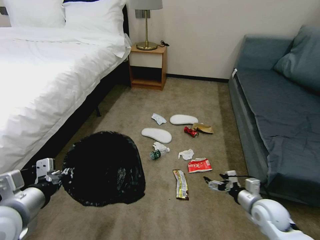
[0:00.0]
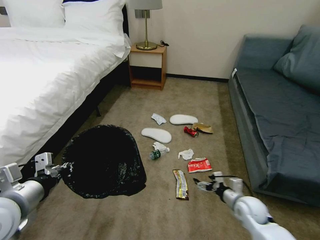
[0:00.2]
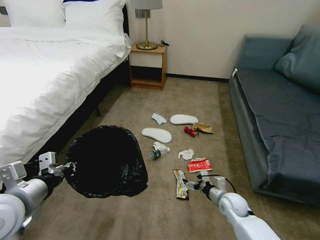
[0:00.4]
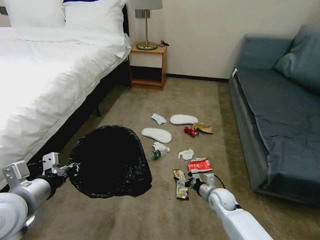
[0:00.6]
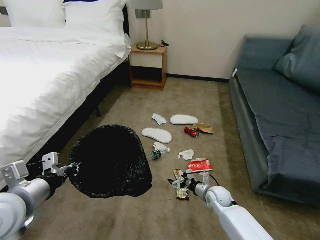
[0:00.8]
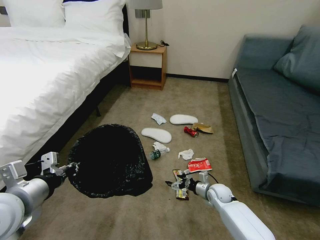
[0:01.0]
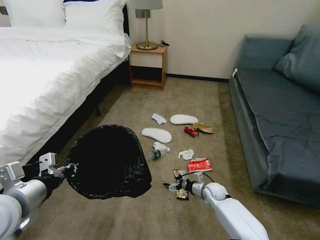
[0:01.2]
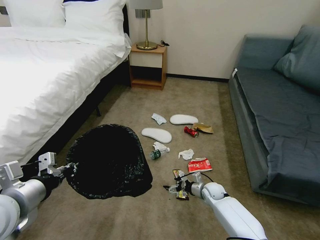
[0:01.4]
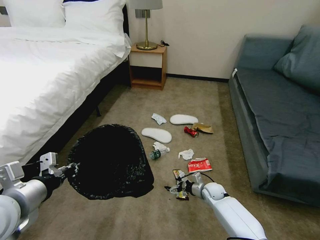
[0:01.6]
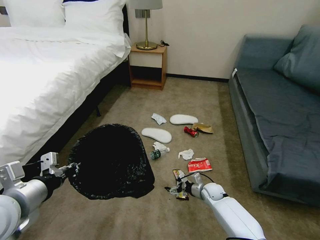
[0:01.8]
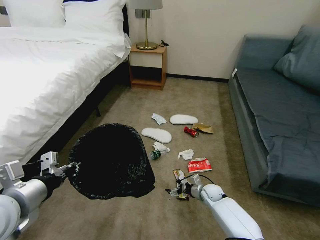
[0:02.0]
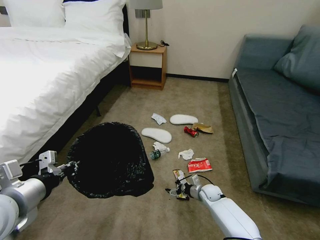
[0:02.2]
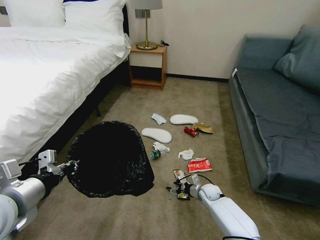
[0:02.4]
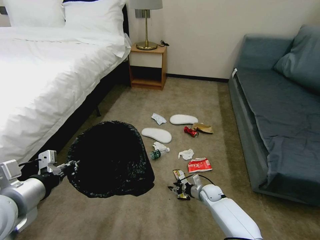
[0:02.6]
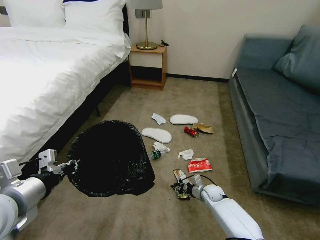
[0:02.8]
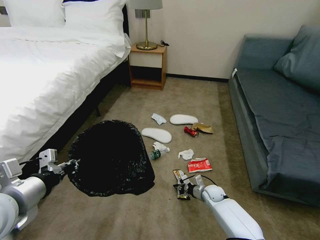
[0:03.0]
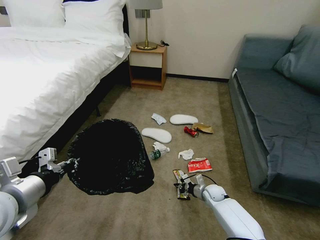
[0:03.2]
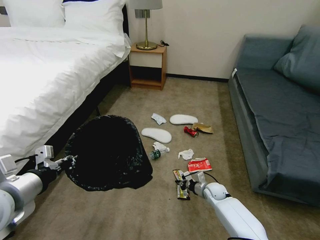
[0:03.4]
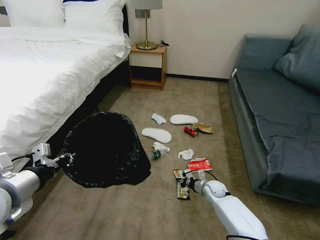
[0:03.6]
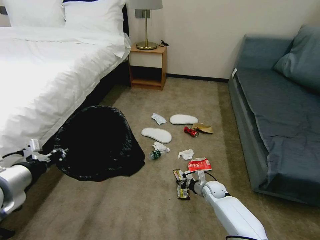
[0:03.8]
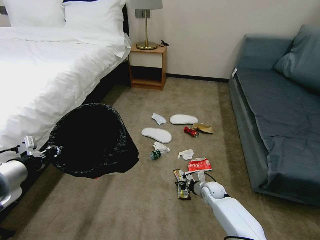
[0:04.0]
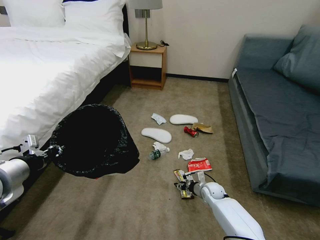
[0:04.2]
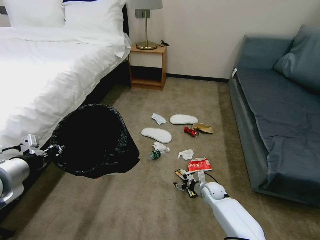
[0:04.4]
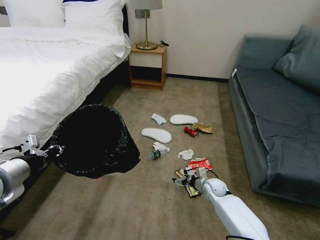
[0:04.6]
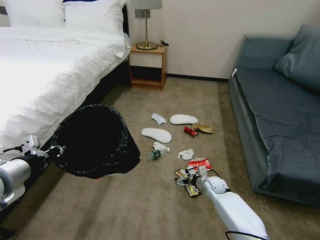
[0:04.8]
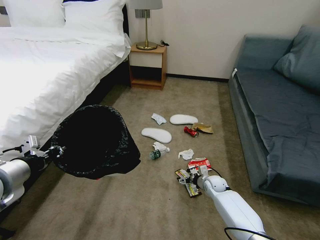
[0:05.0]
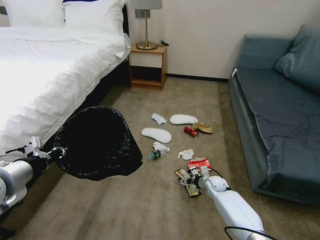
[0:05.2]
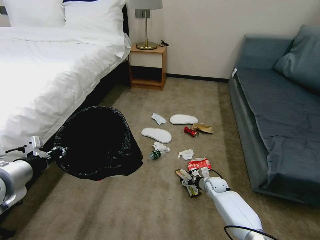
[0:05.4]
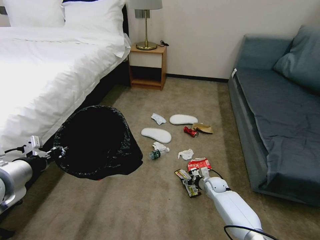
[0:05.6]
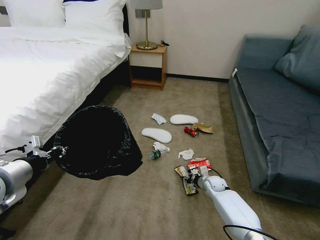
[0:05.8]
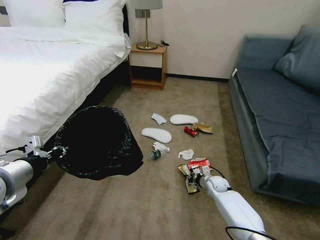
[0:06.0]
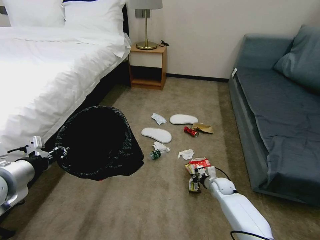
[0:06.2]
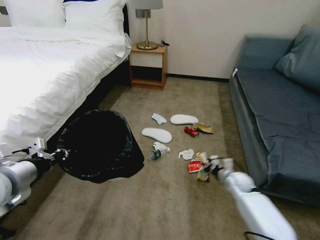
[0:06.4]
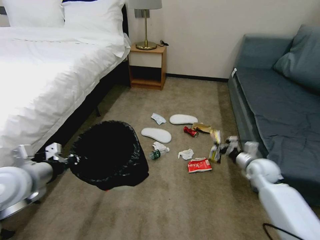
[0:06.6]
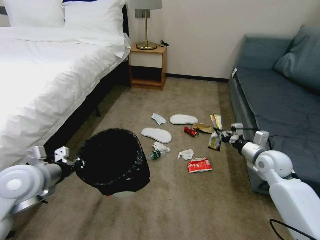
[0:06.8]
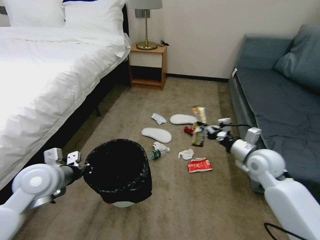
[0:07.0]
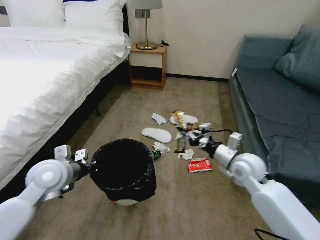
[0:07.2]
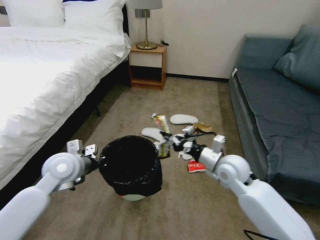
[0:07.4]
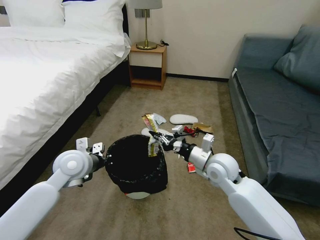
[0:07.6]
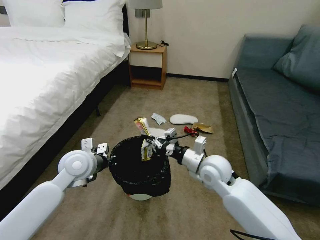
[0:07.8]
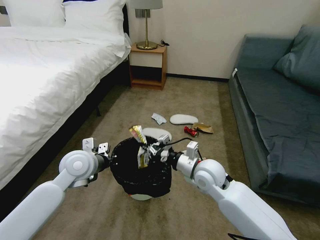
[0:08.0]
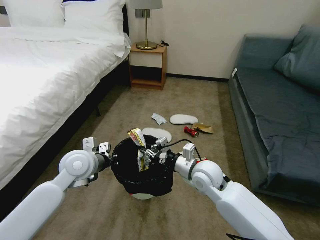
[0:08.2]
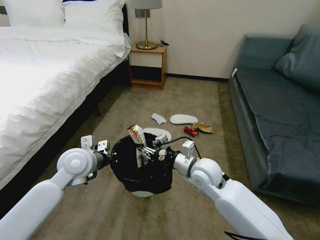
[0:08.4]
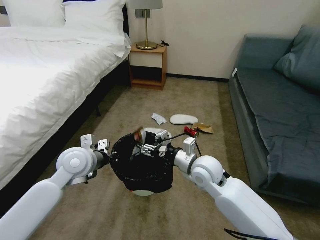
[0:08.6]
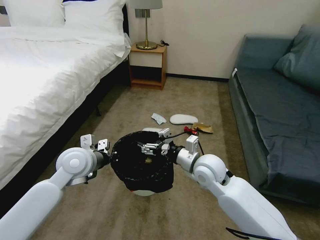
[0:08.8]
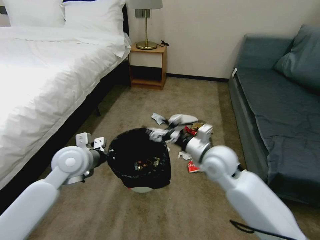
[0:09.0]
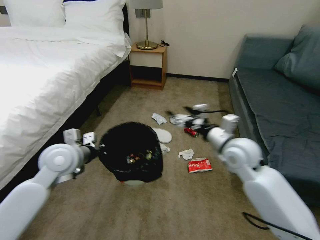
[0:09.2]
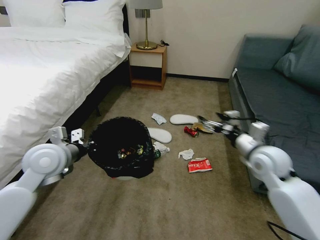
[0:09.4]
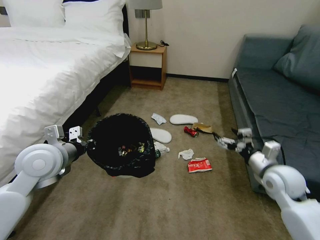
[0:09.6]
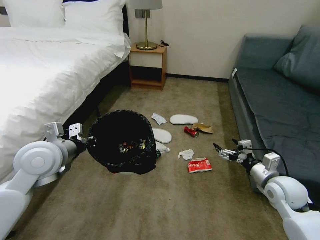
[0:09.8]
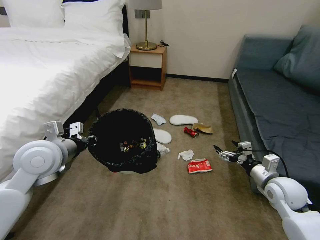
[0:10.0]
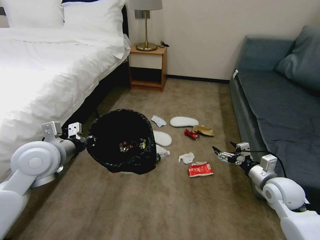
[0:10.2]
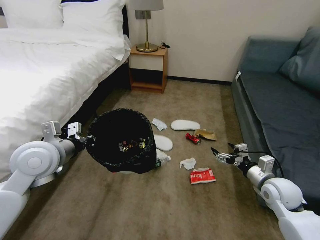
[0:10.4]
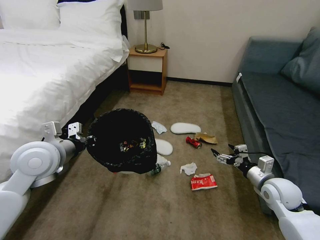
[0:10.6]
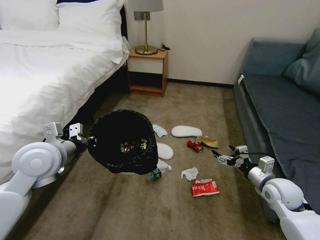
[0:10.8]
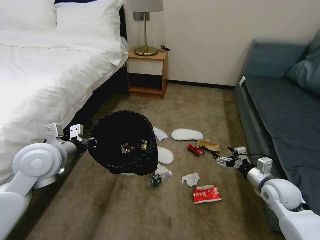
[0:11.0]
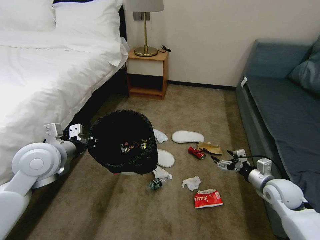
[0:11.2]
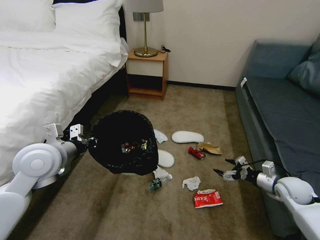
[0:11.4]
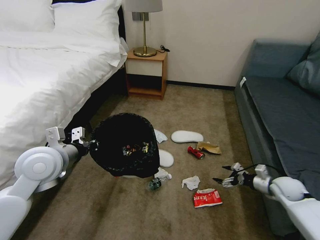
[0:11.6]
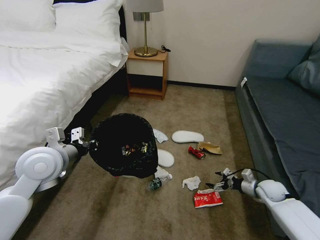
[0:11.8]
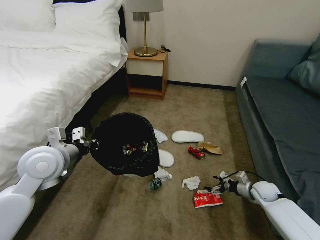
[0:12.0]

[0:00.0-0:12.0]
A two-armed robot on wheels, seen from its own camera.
Task of the whole recording: Pick up the trash bin, then pick up the garbage on the floor and place it into the trash bin.
0.0 to 1.6 s: The right gripper shifts some 25 cm downward, forward and to the left.
1.6 to 3.0 s: The right gripper closes.
3.0 to 4.4 s: The left gripper moves some 5 cm; the right gripper opens.
4.4 to 6.0 s: The right gripper closes its fingers.
6.0 to 7.6 s: The left gripper travels forward, to the right and downward by some 20 cm; the right gripper shifts approximately 25 cm upward.
7.6 to 9.0 s: The right gripper opens up.
9.0 to 10.4 s: The left gripper moves upward, about 5 cm; the right gripper heads to the right and downward, covering some 25 cm.
10.4 to 12.0 s: The right gripper is displaced downward and to the right by roughly 15 cm.

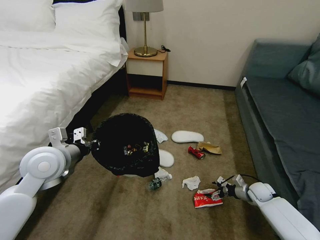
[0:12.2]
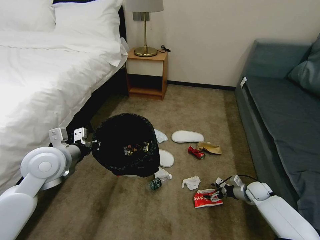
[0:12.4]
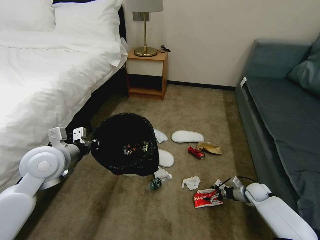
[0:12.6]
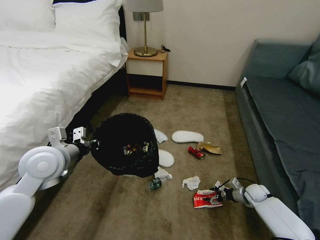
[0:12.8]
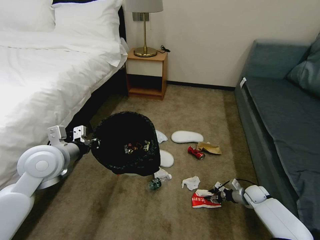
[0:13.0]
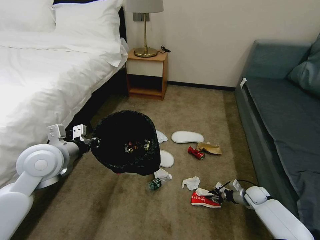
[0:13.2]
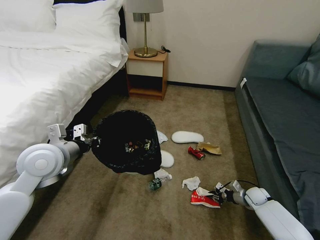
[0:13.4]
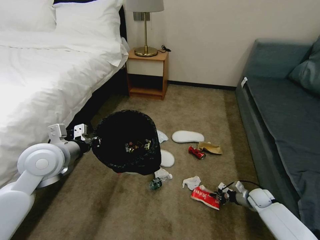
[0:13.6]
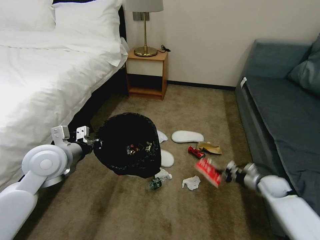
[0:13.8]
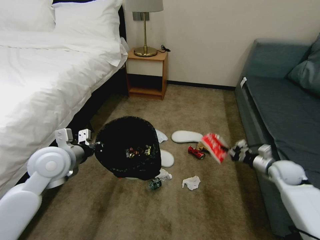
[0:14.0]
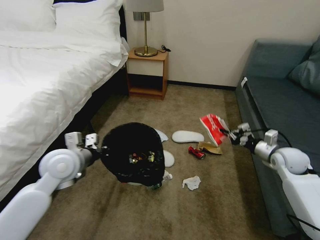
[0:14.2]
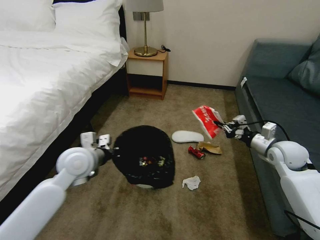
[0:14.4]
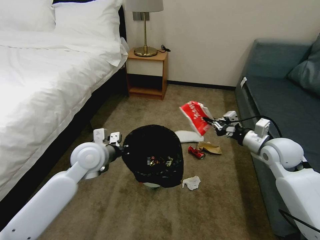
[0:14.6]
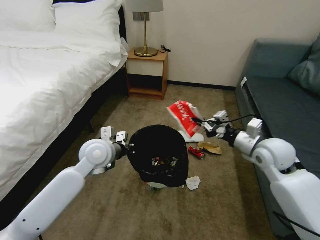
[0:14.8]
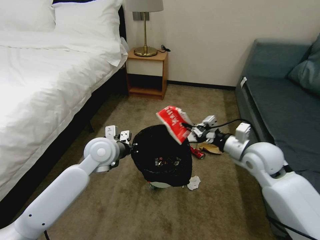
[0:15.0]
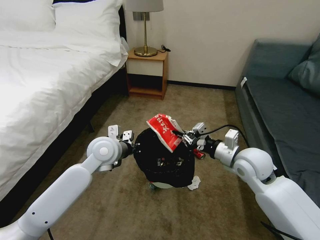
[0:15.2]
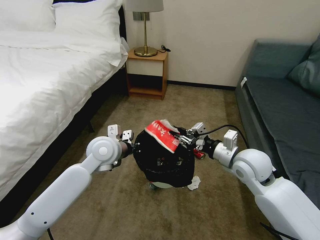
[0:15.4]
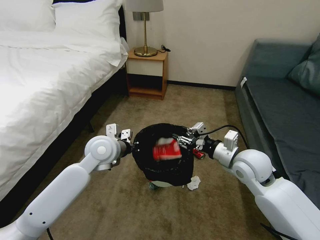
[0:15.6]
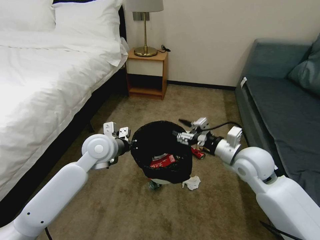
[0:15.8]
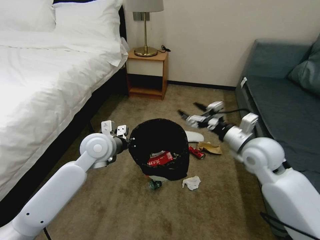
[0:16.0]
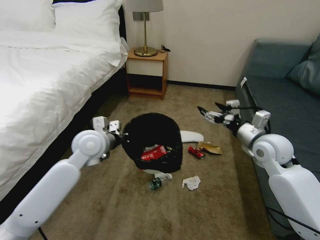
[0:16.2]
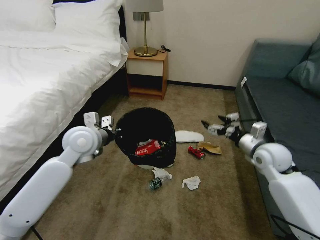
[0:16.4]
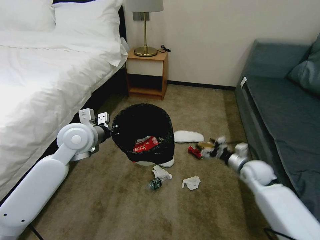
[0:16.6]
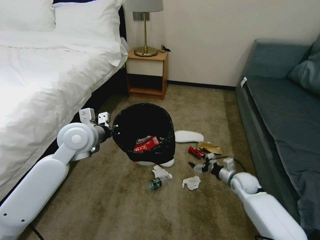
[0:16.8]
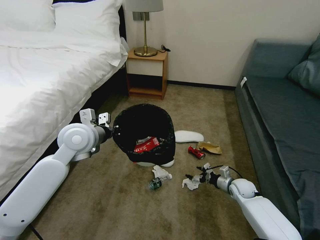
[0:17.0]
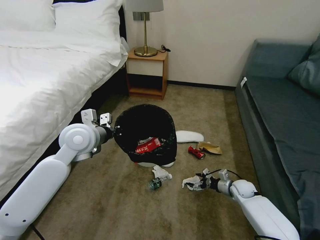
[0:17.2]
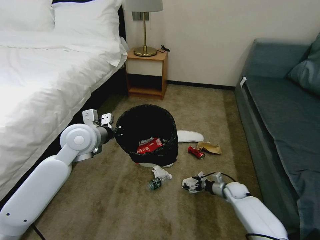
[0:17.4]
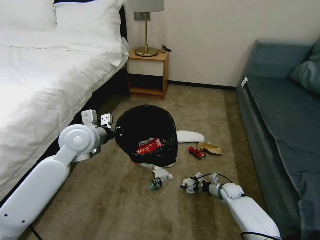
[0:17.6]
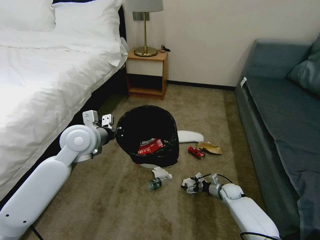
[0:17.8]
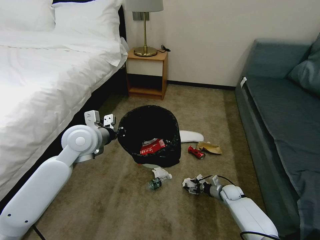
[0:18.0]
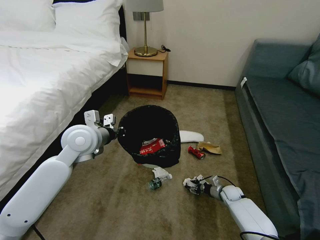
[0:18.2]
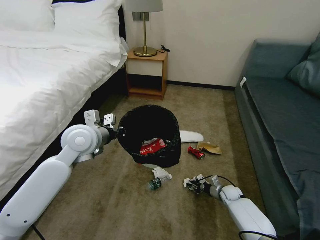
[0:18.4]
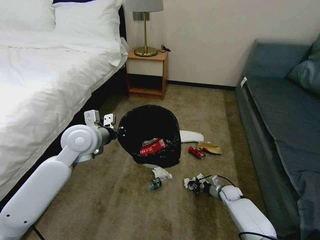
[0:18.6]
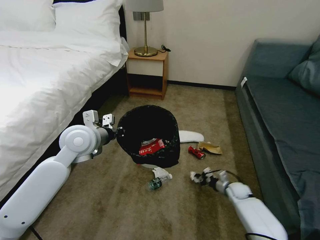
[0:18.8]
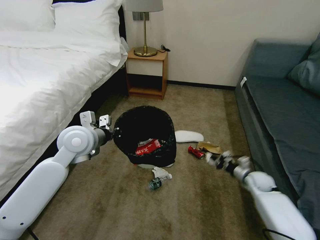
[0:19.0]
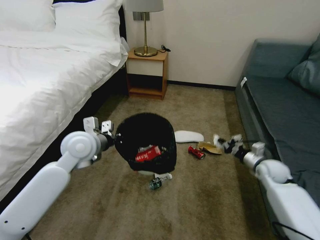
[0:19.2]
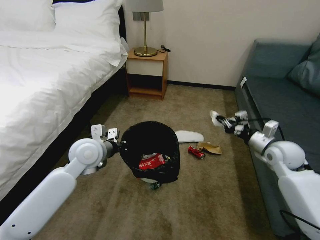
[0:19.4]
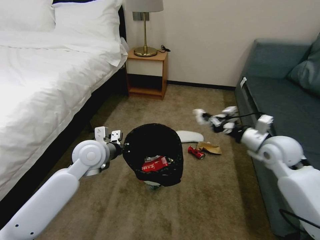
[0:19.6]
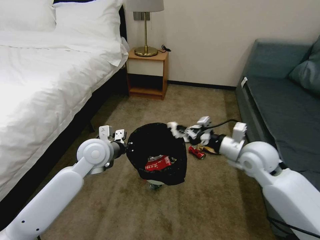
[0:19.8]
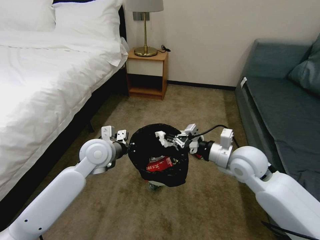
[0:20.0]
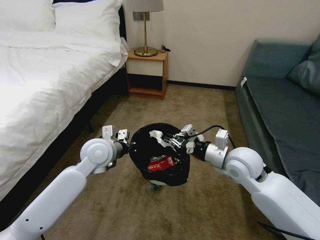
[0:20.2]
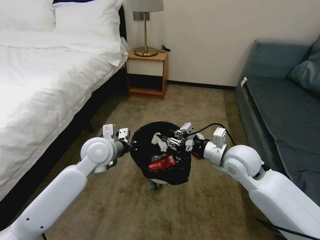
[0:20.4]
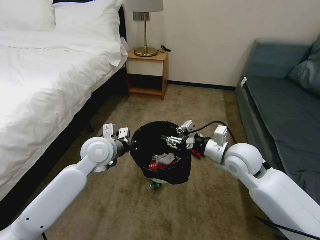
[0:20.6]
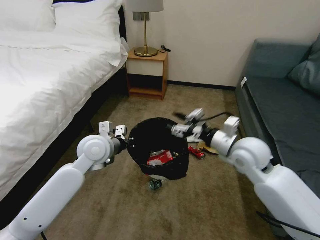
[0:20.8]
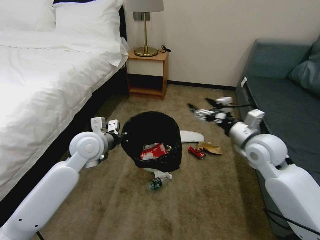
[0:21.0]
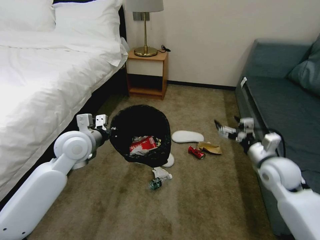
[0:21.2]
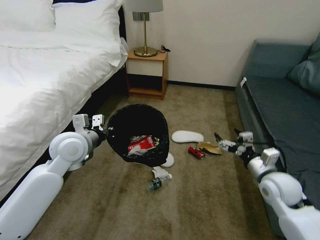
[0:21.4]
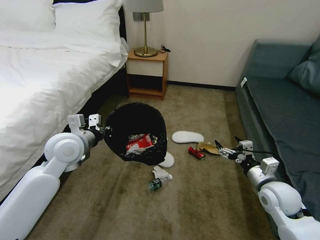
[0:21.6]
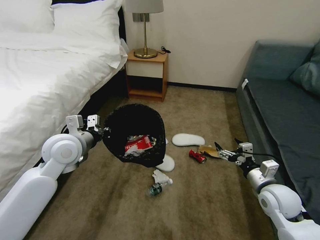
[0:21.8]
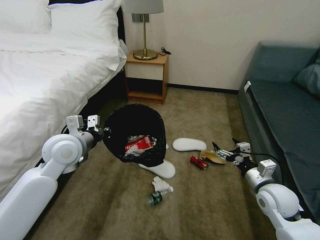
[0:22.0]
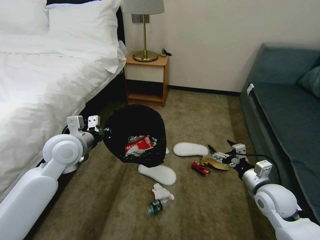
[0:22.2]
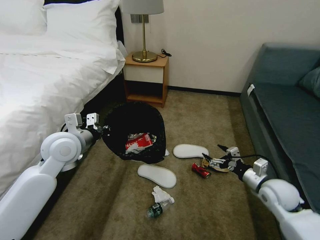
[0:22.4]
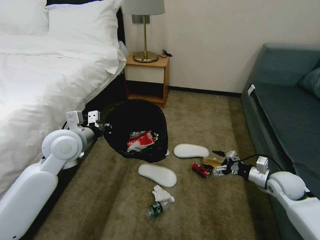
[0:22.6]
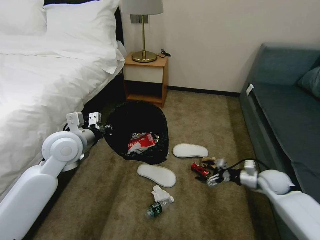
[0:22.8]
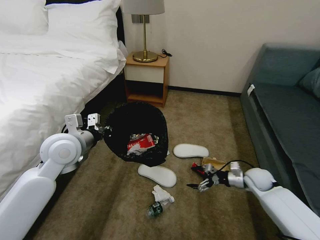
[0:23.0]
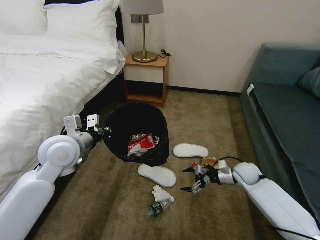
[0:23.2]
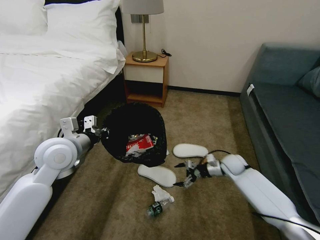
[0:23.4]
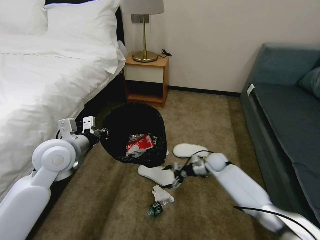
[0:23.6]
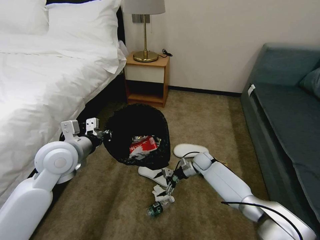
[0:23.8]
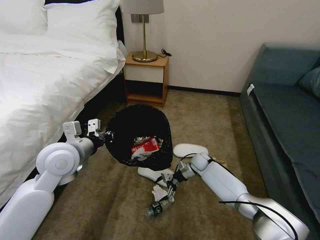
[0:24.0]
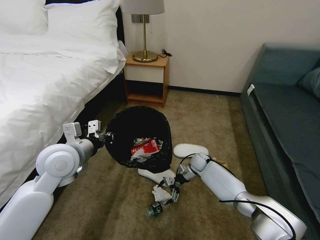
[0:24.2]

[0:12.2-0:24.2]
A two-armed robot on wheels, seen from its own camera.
Task of the whole recording: Pick up the trash bin, then pick up the garbage on the floor and place it into the trash bin.
12.2 to 13.8 s: The right gripper closes.
13.8 to 15.2 s: The left gripper shifts approximately 15 cm to the right and forward; the right gripper goes approximately 30 cm upward and to the left.
15.2 to 16.6 s: The left gripper moves to the left and upward, roughly 10 cm. Meanwhile the right gripper is displaced downward and to the right by about 15 cm, and opens up.
16.6 to 18.2 s: The right gripper heads downward, covering approximately 25 cm, and closes its fingers.
18.2 to 19.8 s: The left gripper heads downward, covering roughly 5 cm, while the right gripper shifts roughly 35 cm upward, and closes its fingers.
19.8 to 21.2 s: The right gripper shifts roughly 5 cm to the right, and opens its fingers.
21.2 to 22.6 s: The right gripper heads downward and to the right, covering roughly 15 cm.
22.6 to 24.2 s: The right gripper travels to the left, forward and downward by approximately 30 cm.
